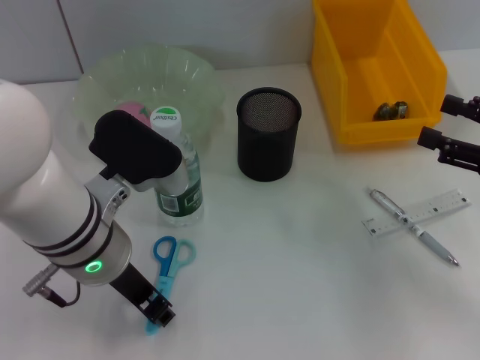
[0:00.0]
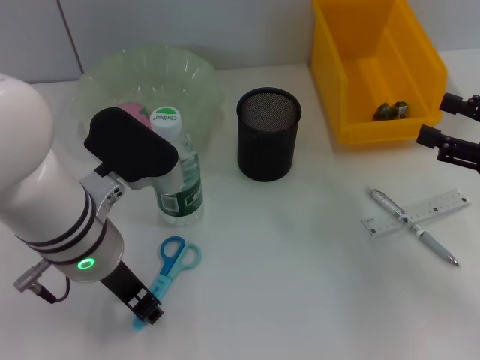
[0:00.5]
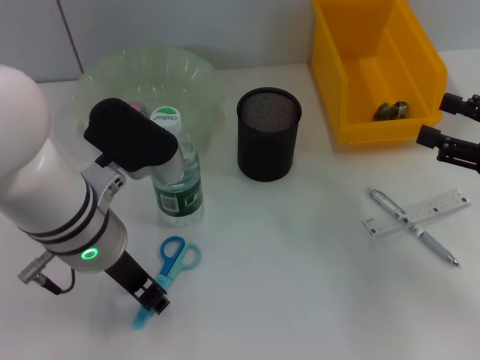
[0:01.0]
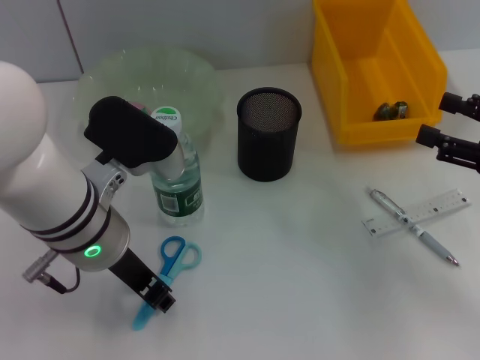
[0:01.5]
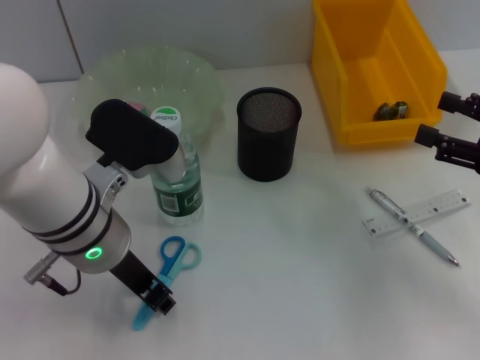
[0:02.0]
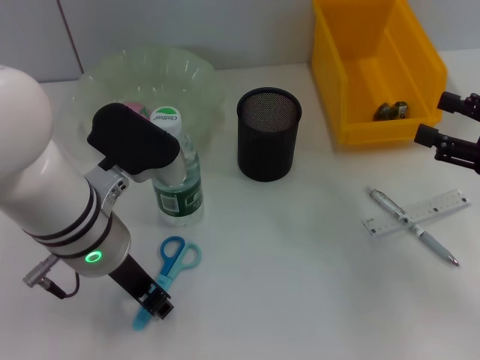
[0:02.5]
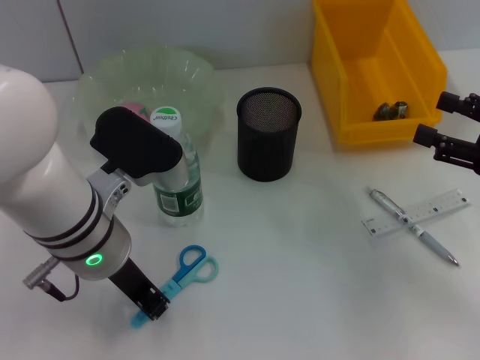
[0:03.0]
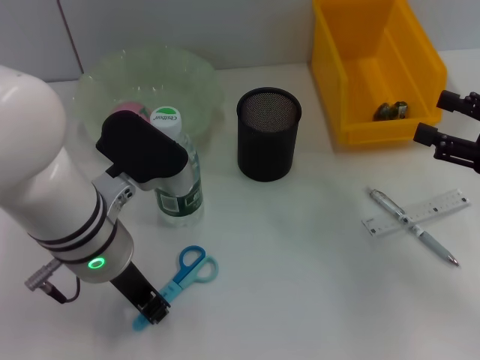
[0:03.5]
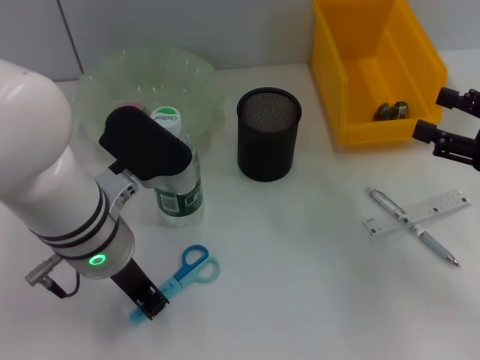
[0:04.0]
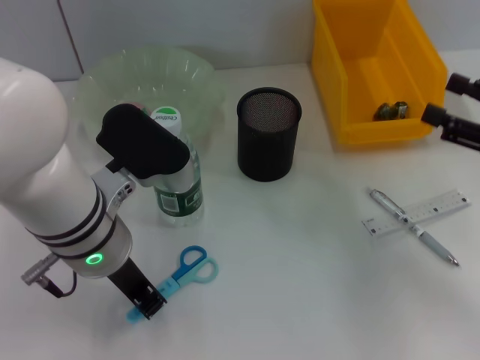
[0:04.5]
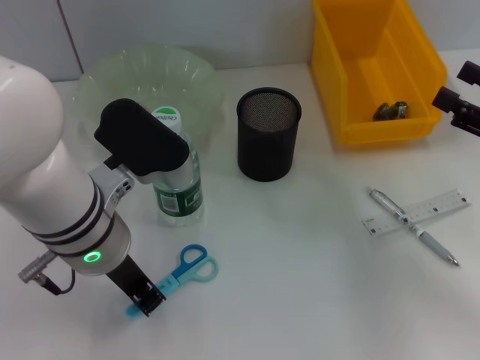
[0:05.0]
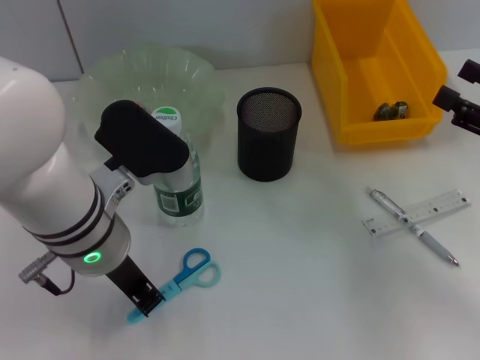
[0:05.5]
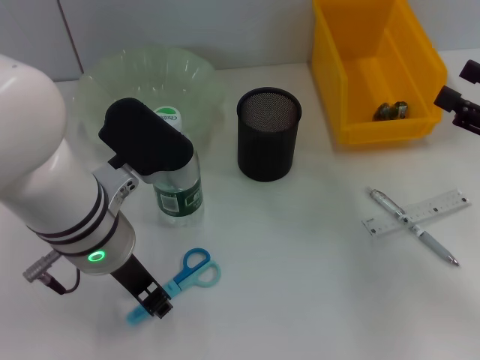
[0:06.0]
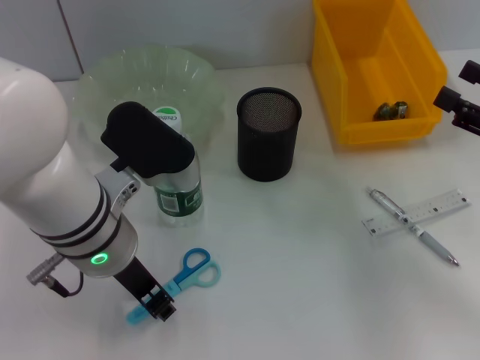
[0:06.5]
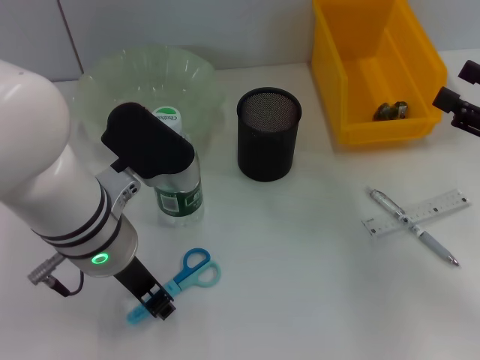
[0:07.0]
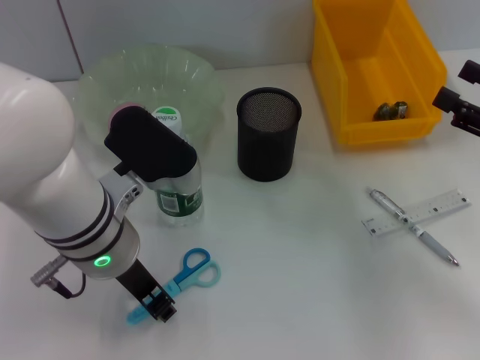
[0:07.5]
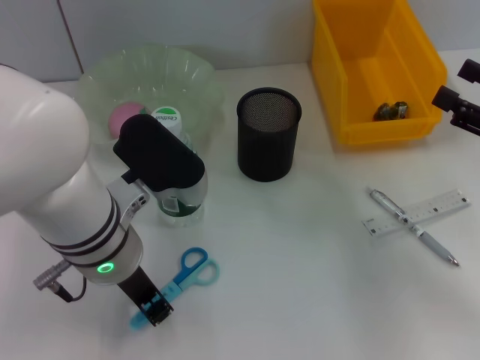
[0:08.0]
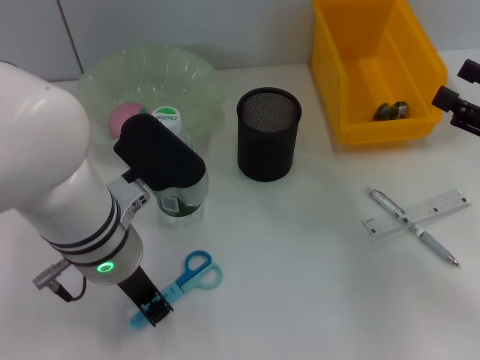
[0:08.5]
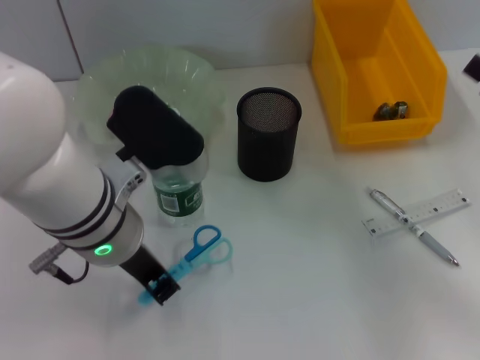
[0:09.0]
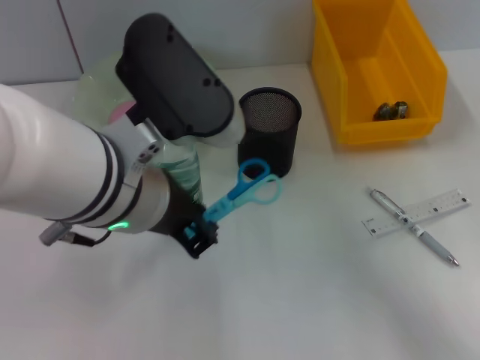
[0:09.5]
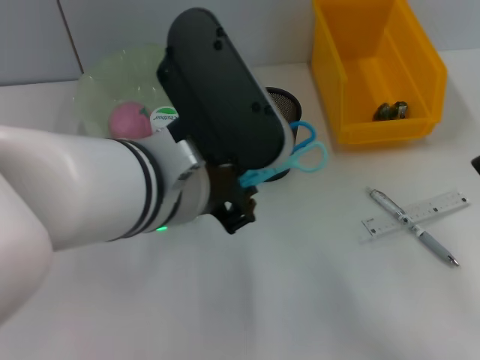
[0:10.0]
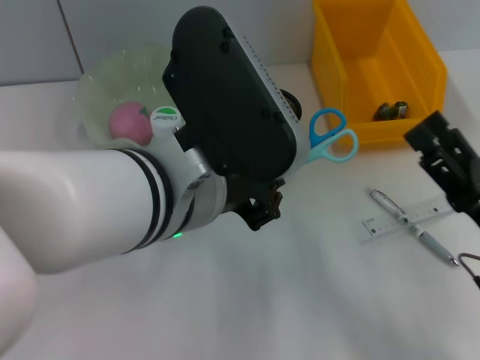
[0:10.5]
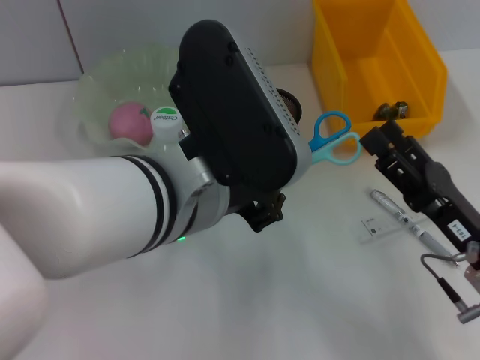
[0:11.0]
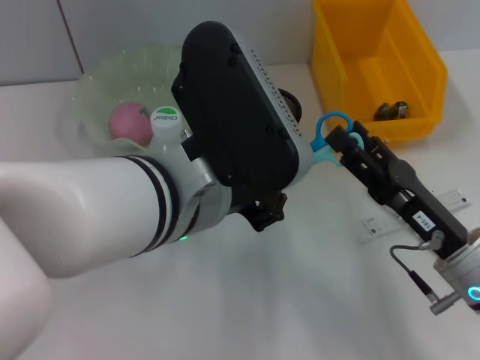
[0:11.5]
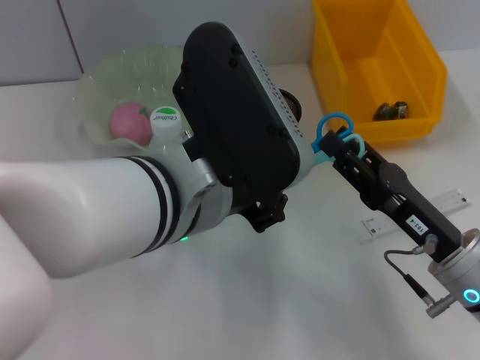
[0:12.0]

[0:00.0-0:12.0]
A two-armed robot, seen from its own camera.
Step, 0:00.0 to 0:08.0: Grab the blue scissors with the left hand.
0:00.0 to 0:02.0: Both grippers stay put.
0:02.0 to 0:04.0: The left gripper closes its fingers.
0:04.0 to 0:08.0: The grippers make only small movements.
0:08.0 to 0:10.0: The left gripper is displaced upward by about 10 cm, while the right gripper travels backward, to the left and downward by approximately 15 cm.
0:10.0 to 0:12.0: The right gripper is displaced to the left and forward by roughly 10 cm.

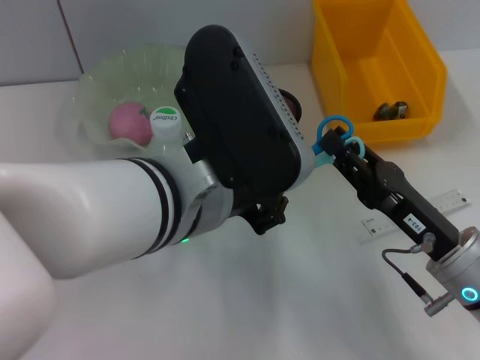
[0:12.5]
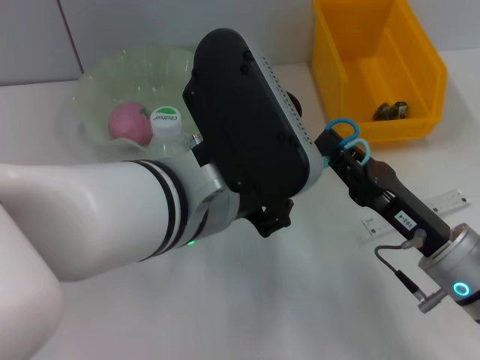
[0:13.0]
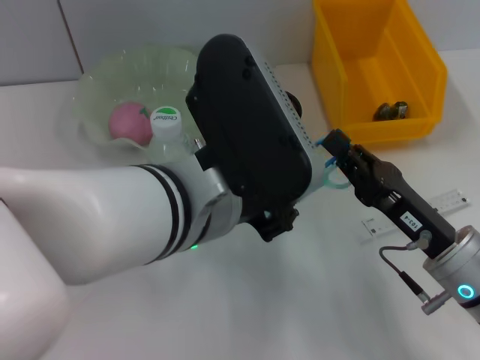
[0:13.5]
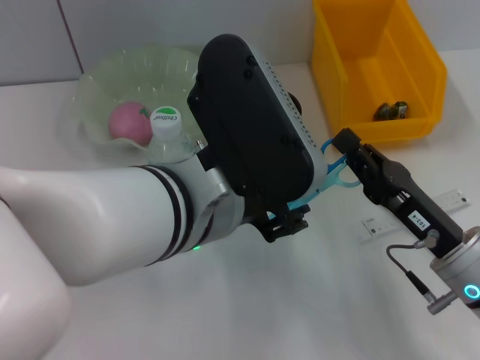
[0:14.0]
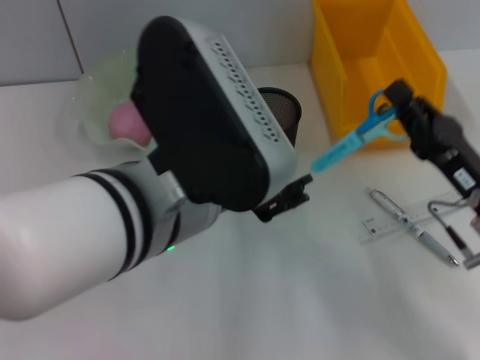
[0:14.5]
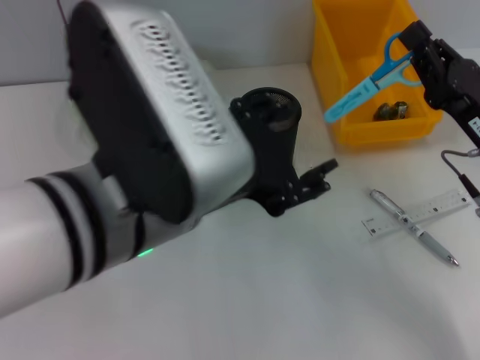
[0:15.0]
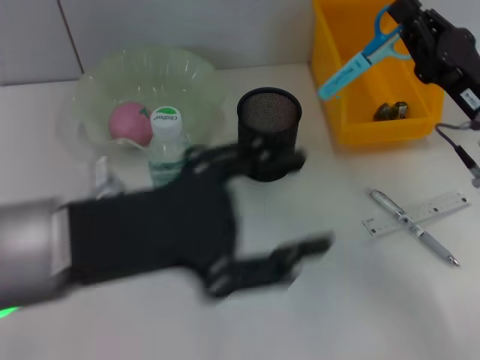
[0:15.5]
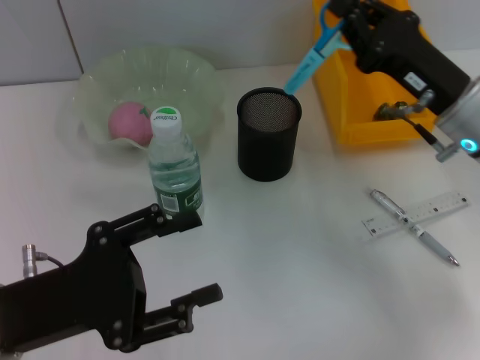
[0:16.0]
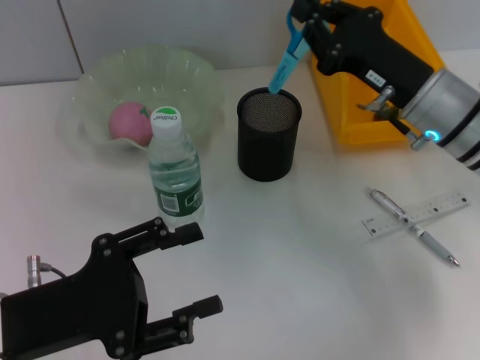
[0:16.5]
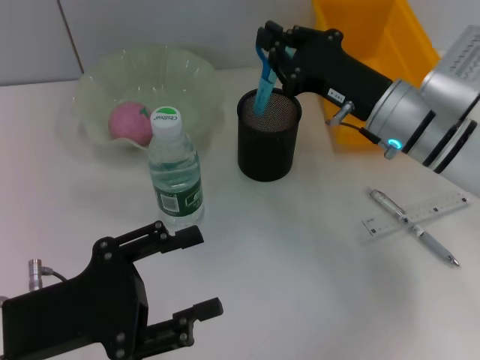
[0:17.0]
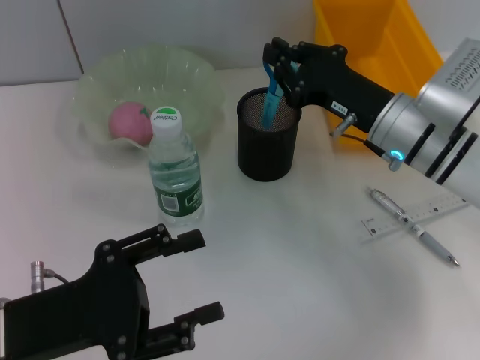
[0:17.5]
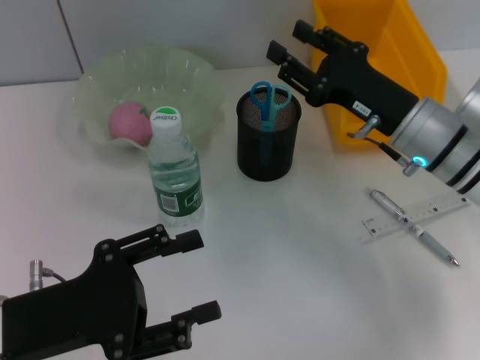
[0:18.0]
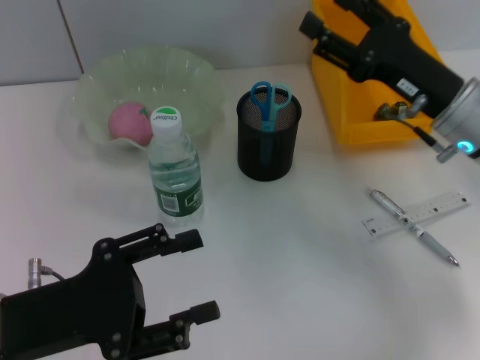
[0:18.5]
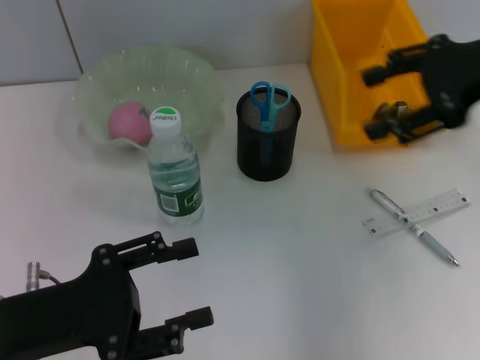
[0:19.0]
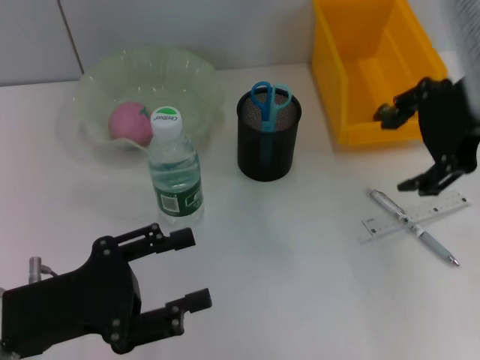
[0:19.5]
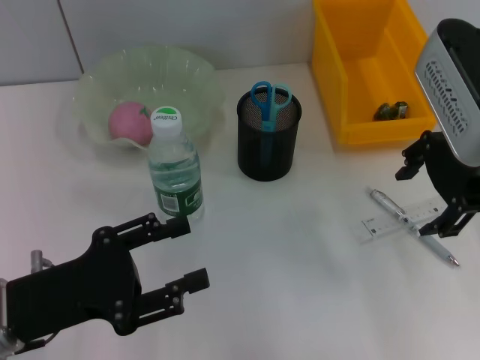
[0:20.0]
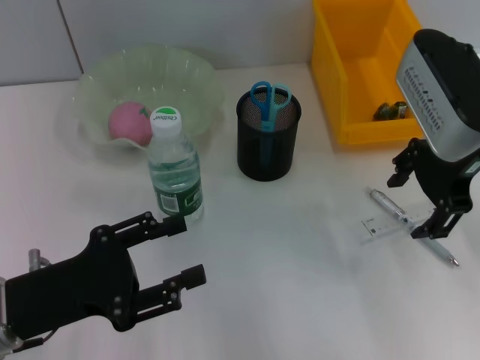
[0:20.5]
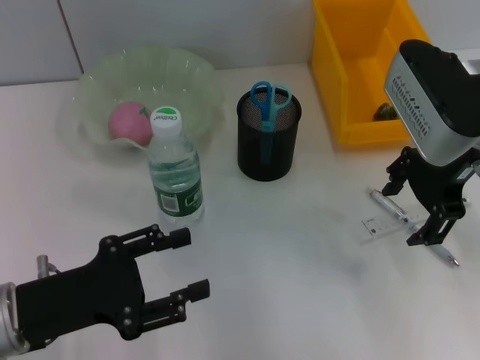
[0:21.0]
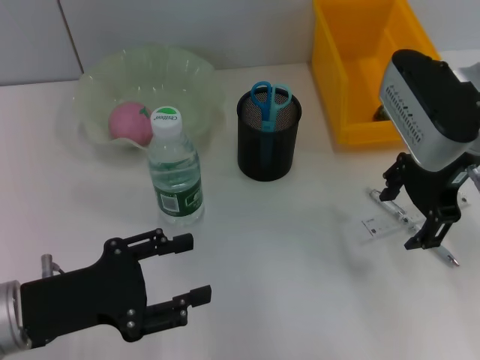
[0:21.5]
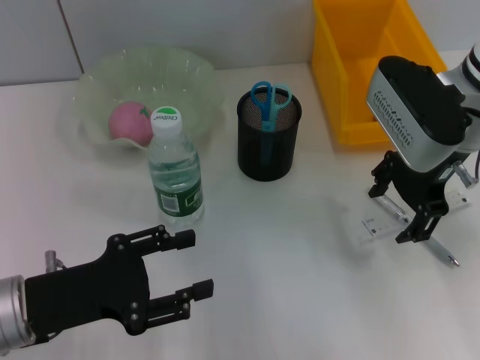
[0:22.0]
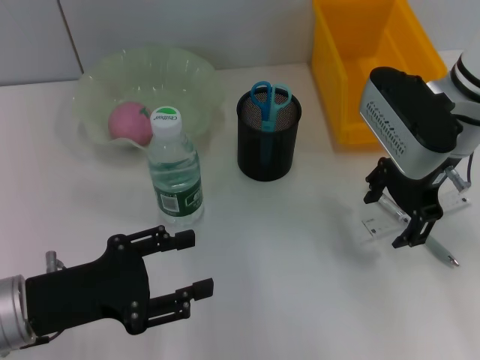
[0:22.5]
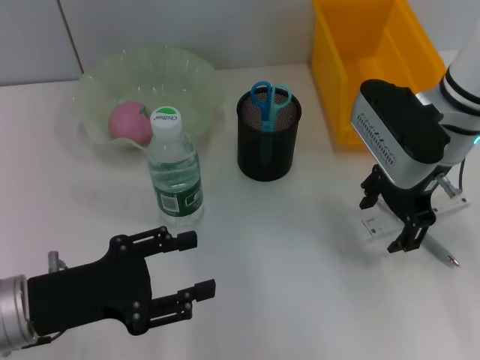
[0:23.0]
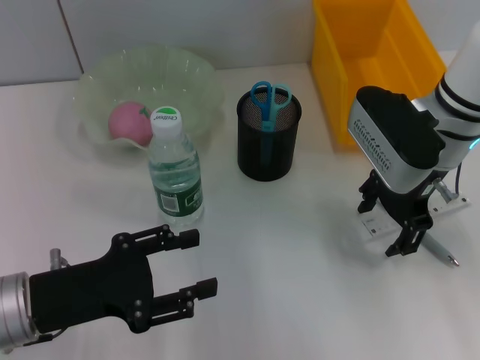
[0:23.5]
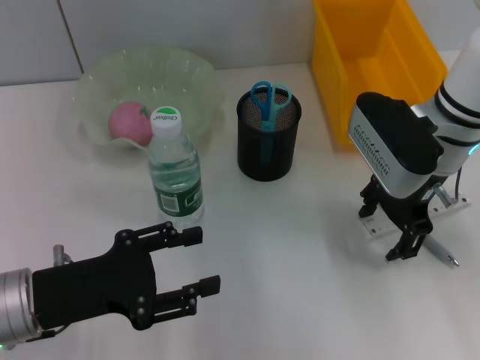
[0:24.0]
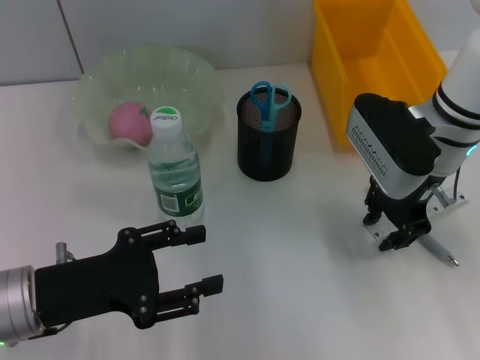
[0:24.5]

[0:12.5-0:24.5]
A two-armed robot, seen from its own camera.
Step, 0:14.5 to 0:17.5: Place the blue scissors into the pen holder with the right hand.
0:12.5 to 0:14.5: The left gripper opens its fingers. The right gripper closes up.
0:14.5 to 0:16.5: The right gripper heads forward and upward, covering approximately 10 cm; the left gripper shifts approximately 20 cm to the left and downward.
0:16.5 to 0:18.5: The right gripper opens up.
0:18.5 to 0:20.5: The right gripper is displaced upward by some 10 cm.
0:20.5 to 0:22.5: The right gripper moves about 5 cm.
0:22.5 to 0:24.5: The grippers stay close to where they were, moving slightly.

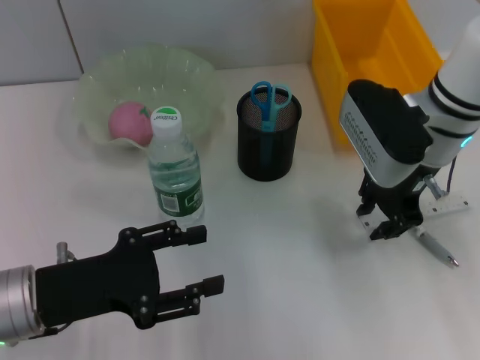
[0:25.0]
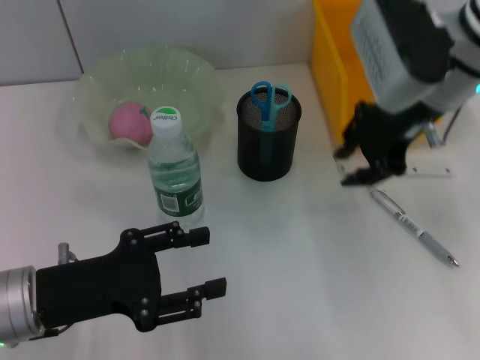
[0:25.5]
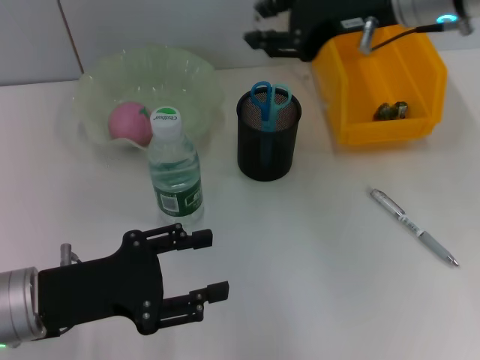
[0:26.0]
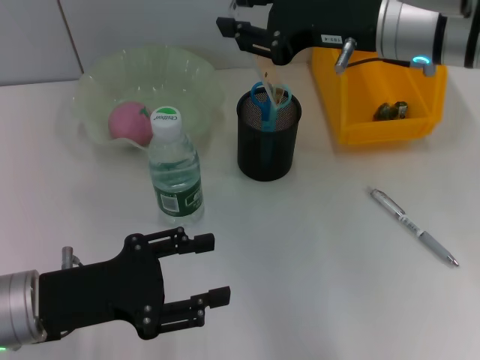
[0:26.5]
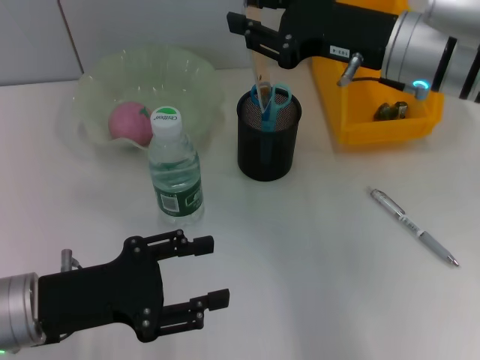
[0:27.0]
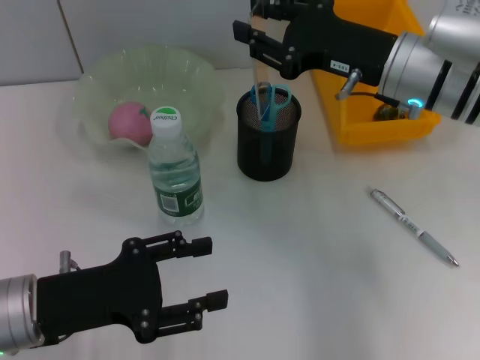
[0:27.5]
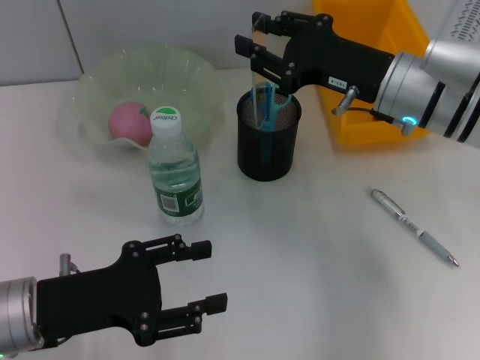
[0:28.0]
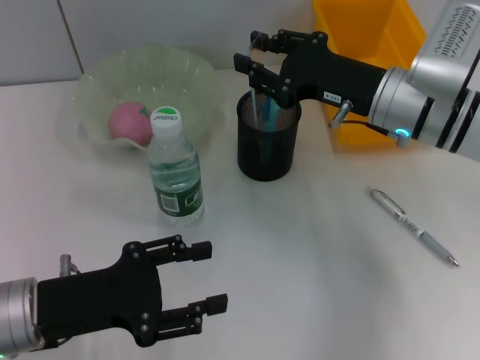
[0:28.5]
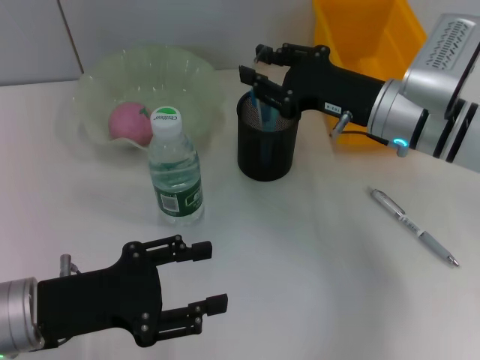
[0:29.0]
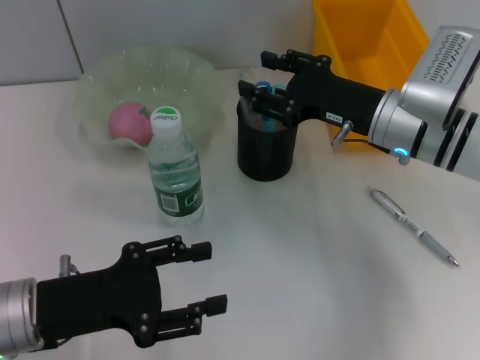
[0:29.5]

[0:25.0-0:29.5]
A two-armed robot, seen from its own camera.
0:27.0 to 0:29.5: The right gripper travels downward by approximately 10 cm.
